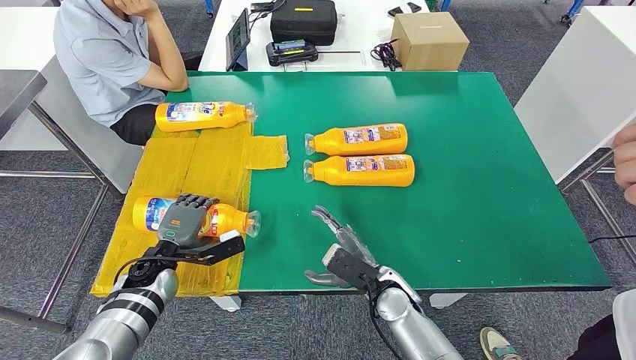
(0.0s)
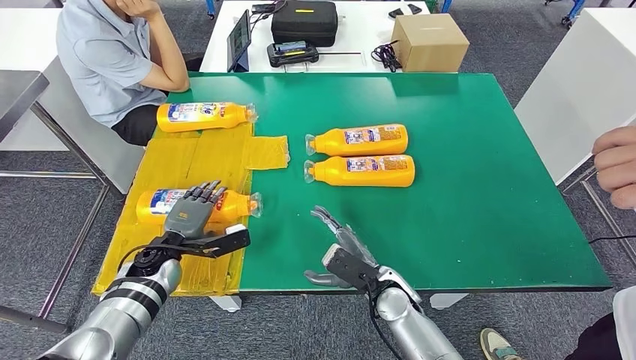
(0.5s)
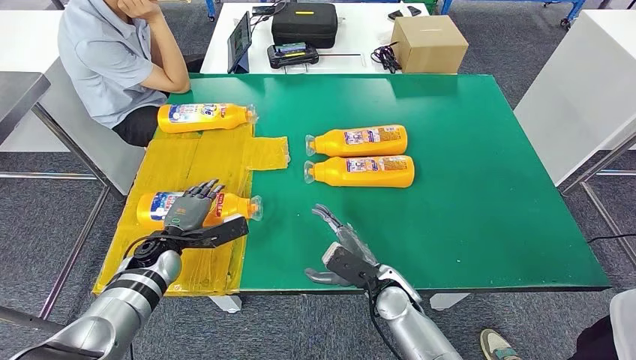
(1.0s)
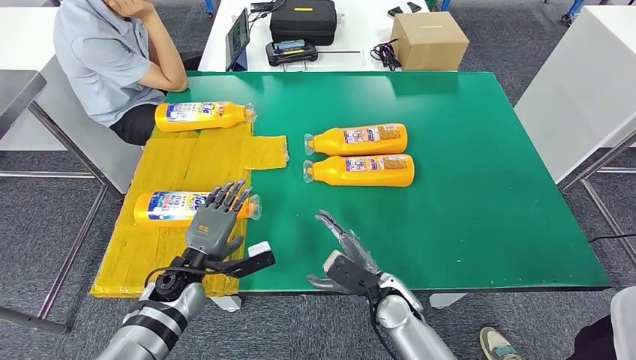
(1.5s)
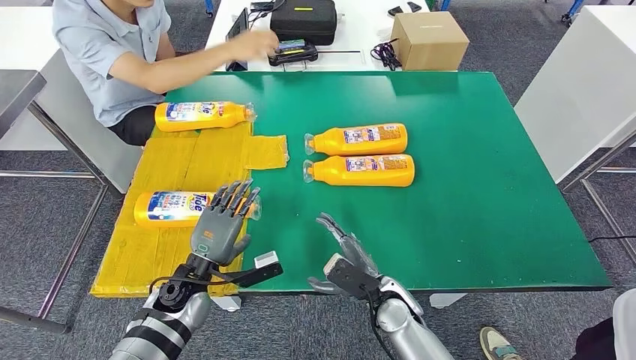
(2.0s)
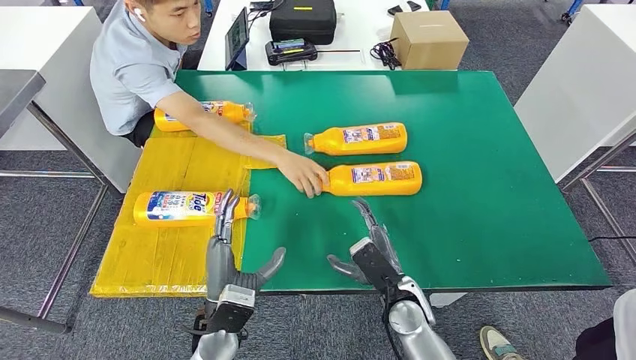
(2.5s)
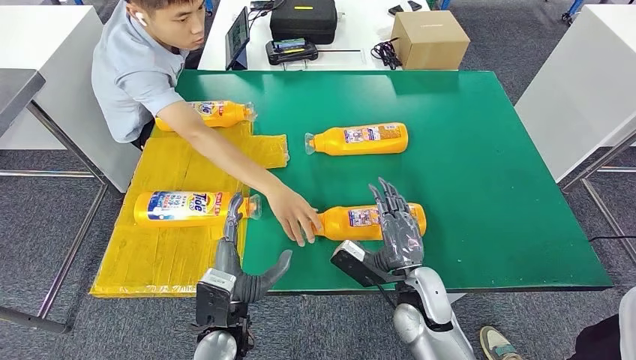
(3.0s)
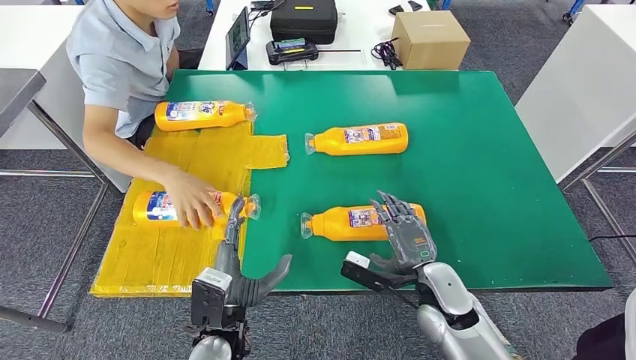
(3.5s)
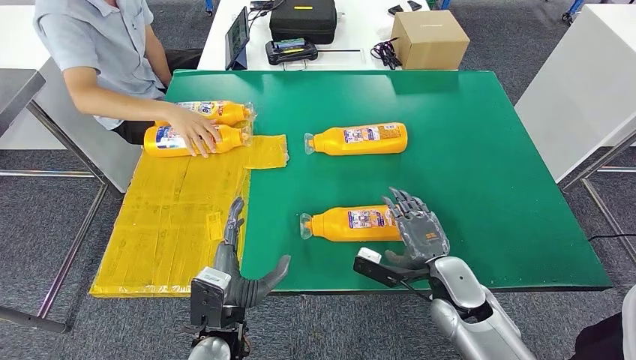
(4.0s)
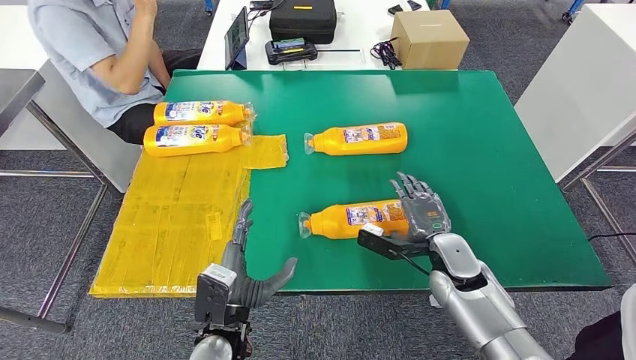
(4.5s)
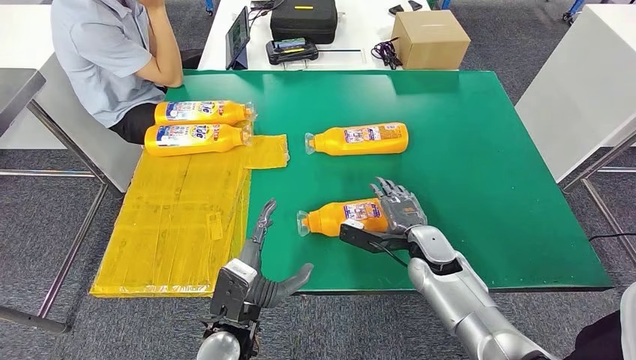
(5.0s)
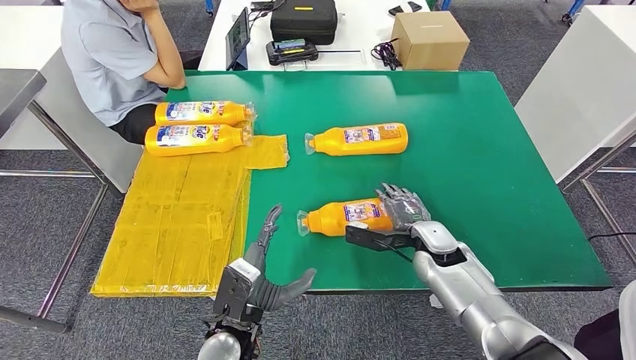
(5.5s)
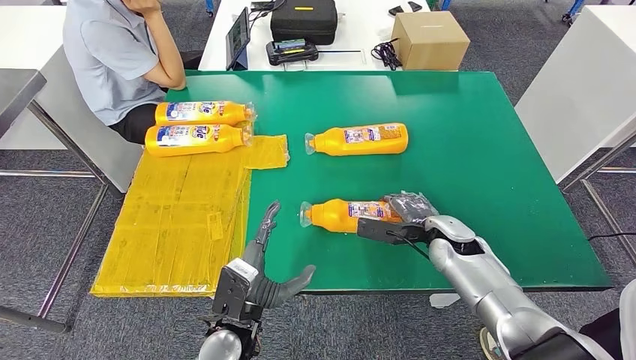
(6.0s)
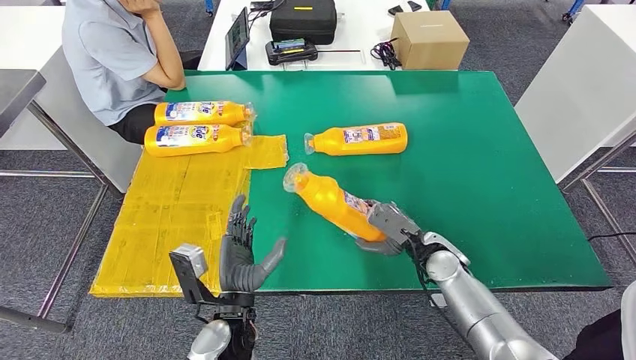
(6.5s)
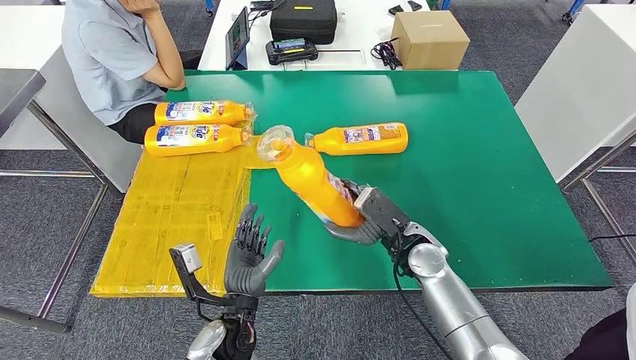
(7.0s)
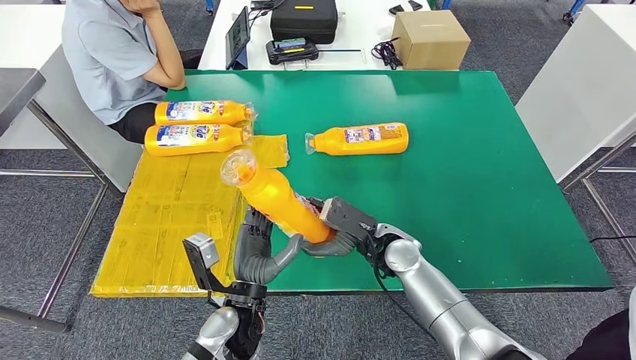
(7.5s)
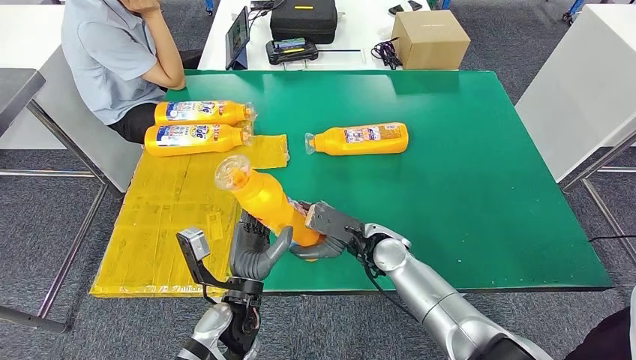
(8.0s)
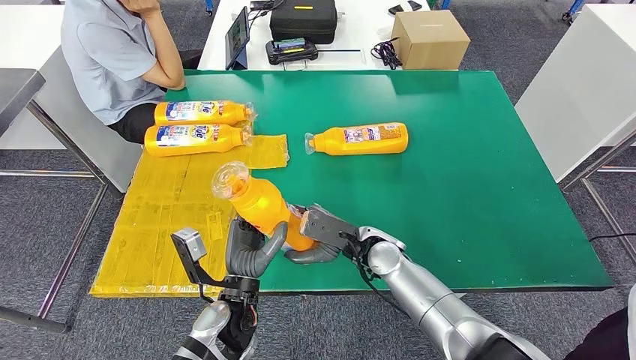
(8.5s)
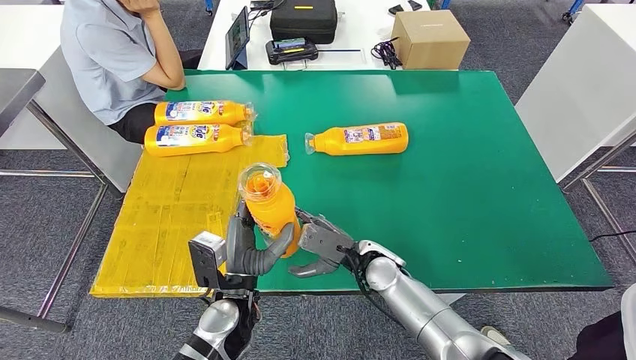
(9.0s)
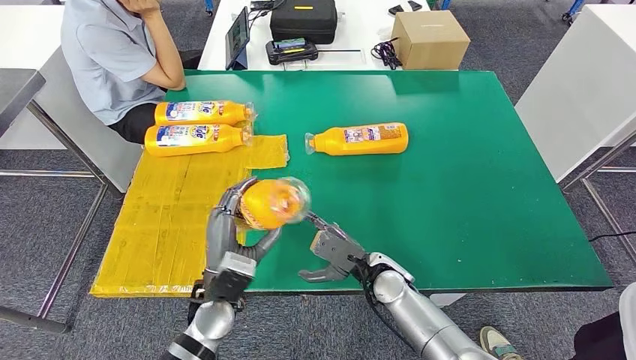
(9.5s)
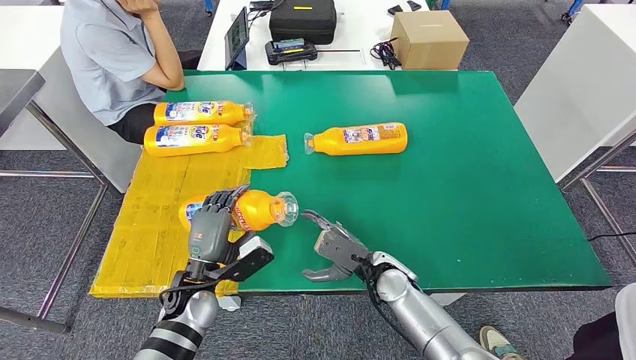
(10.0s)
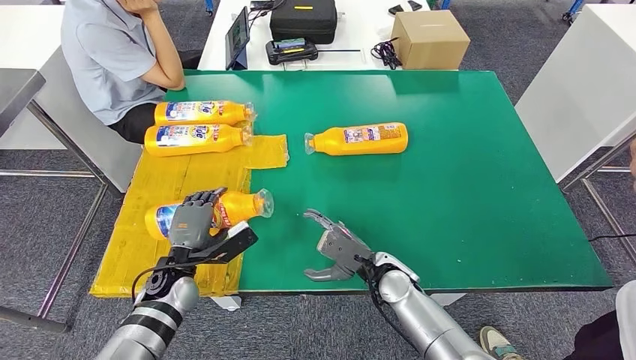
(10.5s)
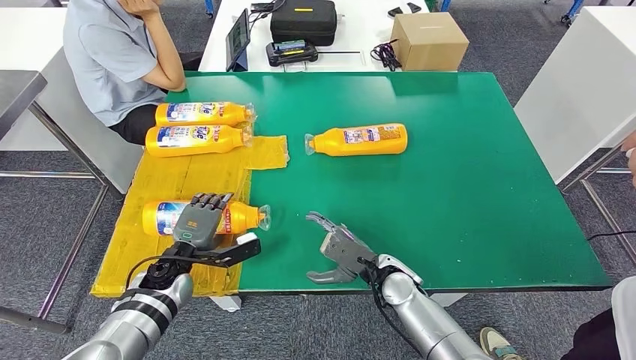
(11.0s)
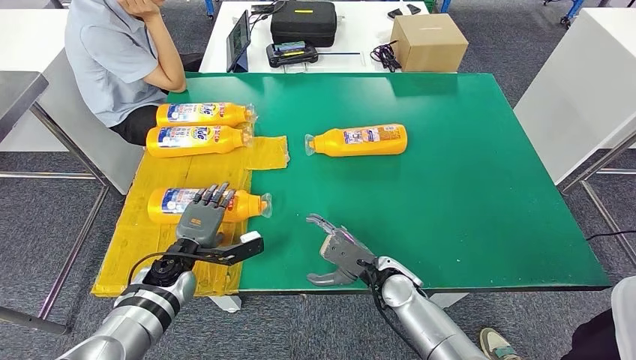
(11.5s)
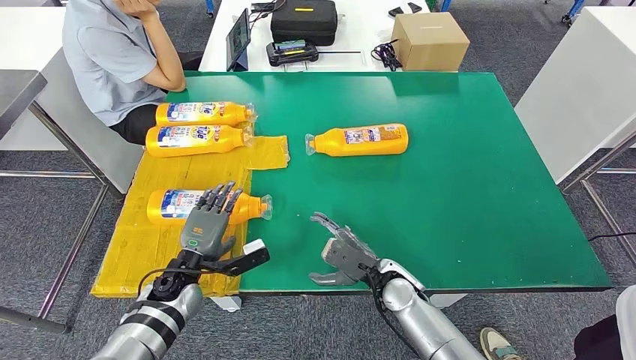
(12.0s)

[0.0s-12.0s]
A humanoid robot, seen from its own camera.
Step, 0.0s to 7.0s: Pick up the bottle from the table.
Step, 7.5s to 11.5s: Flip the bottle to face forward.
0.0s to 2.0s: The left hand moves to the right, approximately 5 cm.
4.0s to 6.0s: The right hand heads forward, covering approximately 10 cm.
6.0s to 8.0s: The right hand travels to the left by roughly 15 cm.
8.0s to 10.0s: The left hand moves to the left, roughly 10 cm. The right hand changes place by roughly 5 cm.

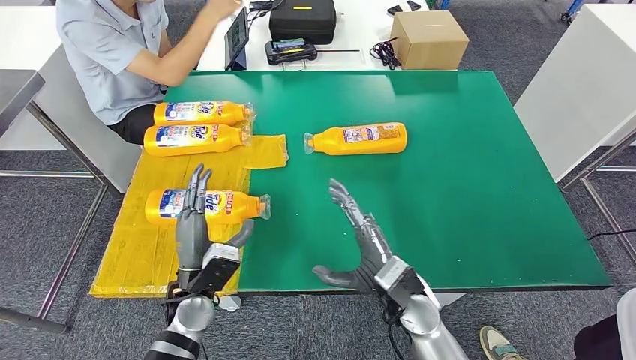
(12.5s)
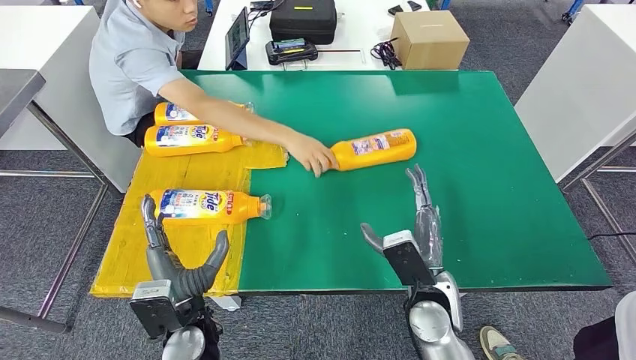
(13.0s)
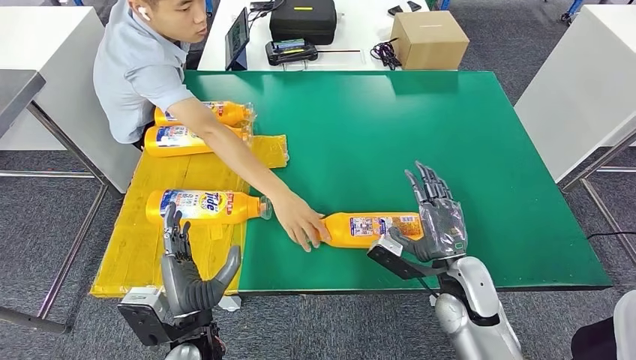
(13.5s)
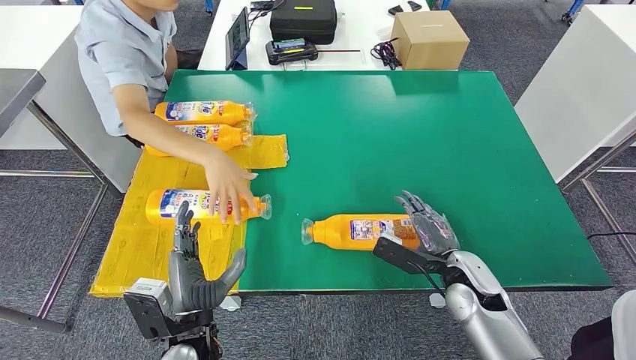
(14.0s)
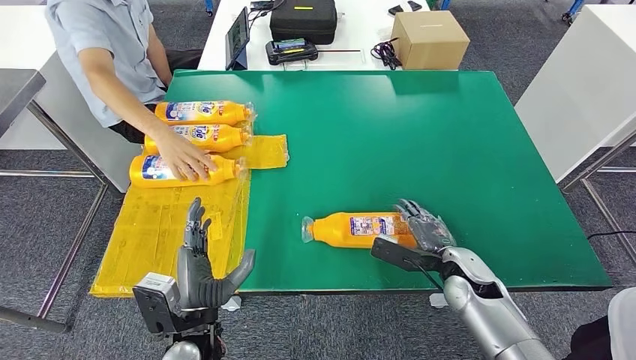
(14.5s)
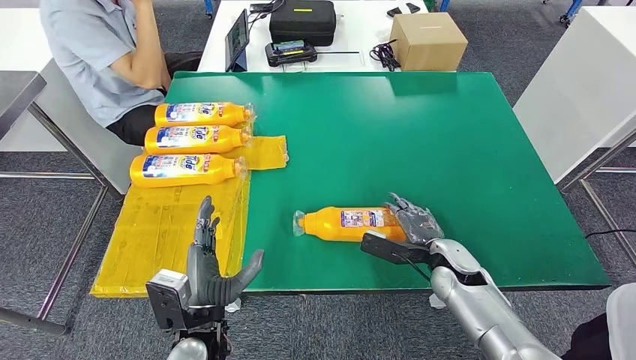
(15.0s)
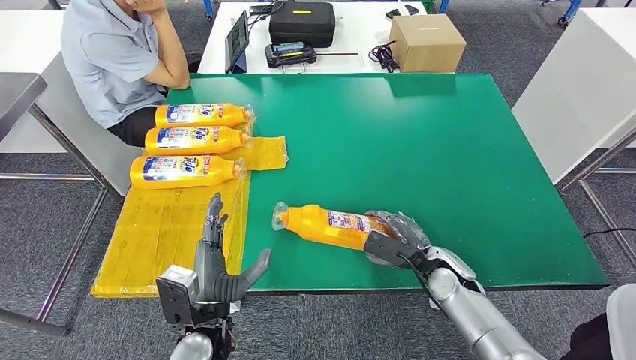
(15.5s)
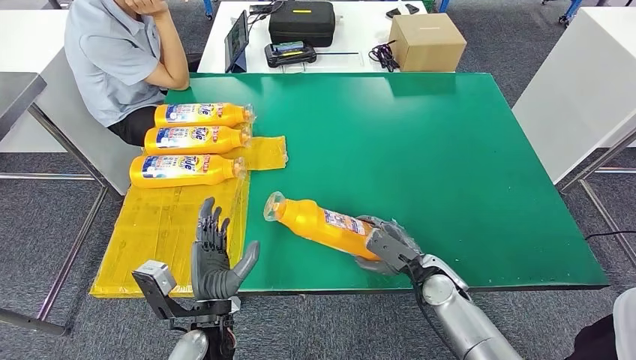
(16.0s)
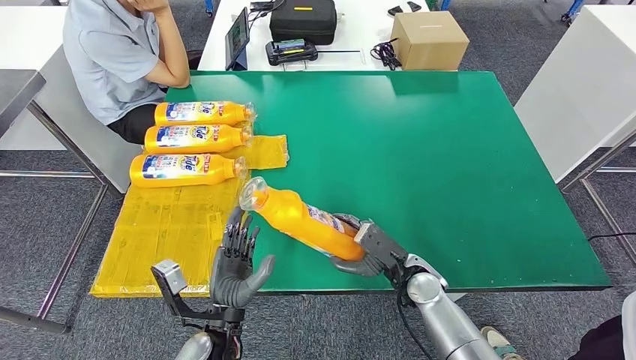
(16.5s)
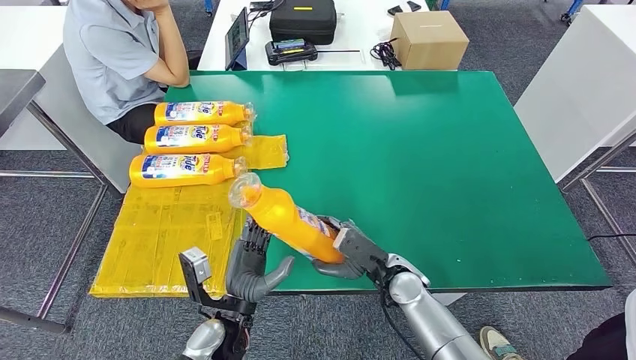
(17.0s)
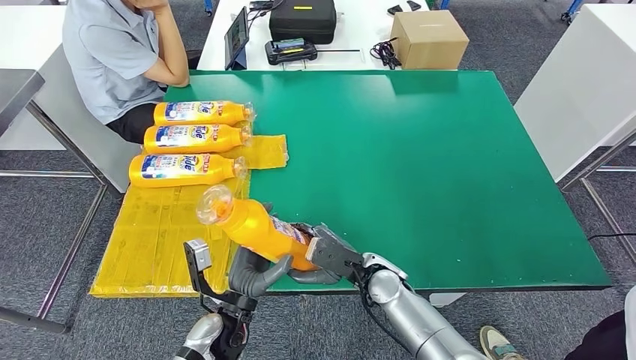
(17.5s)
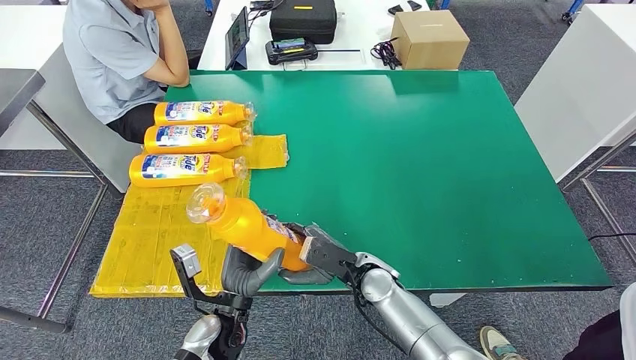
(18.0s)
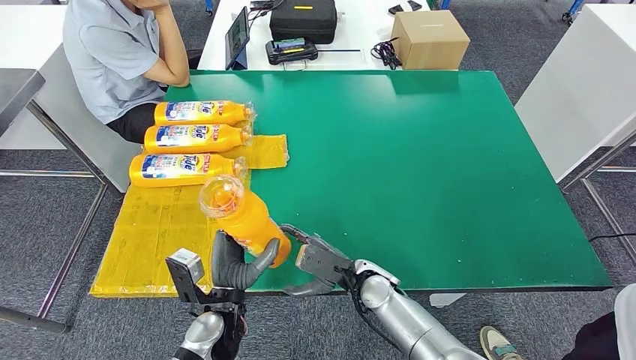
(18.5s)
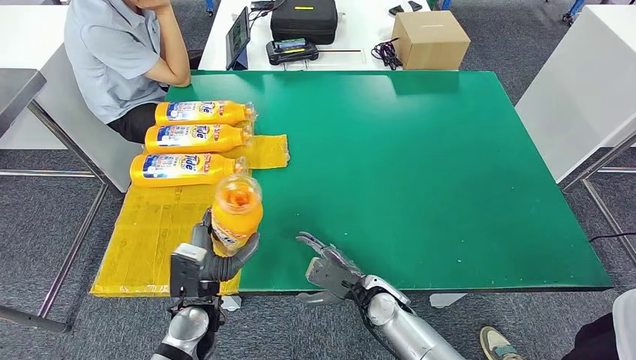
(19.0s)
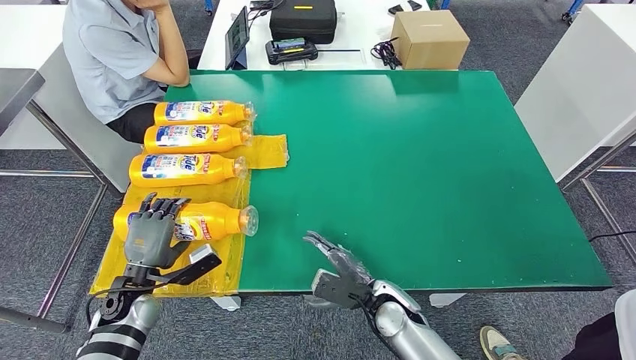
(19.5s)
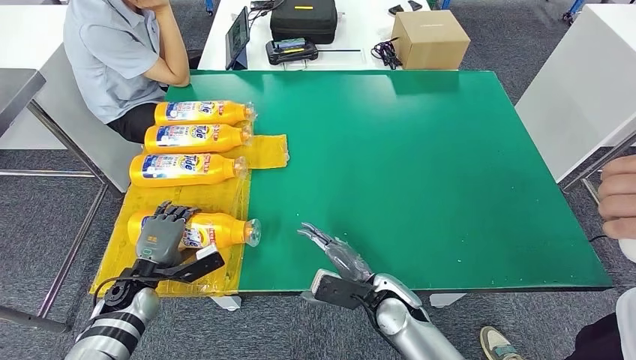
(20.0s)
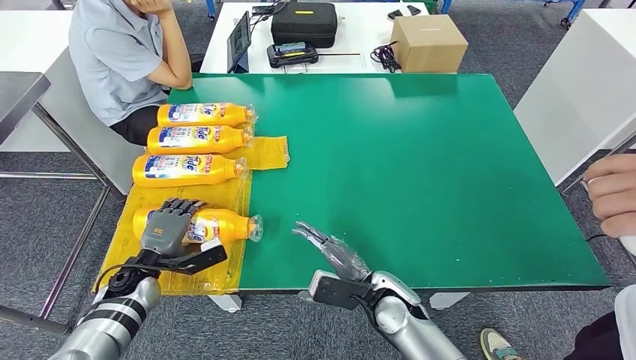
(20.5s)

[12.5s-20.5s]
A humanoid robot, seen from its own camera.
Step, 12.5s to 17.0s: Pick up the bottle from the table.
Step, 17.5s to 20.5s: Flip the bottle to face forward.
14.5s to 16.5s: The right hand goes roughly 10 cm to the left.
16.5s to 18.5s: The right hand shifts approximately 10 cm to the left.
